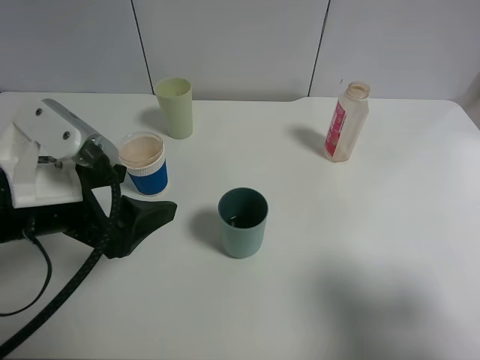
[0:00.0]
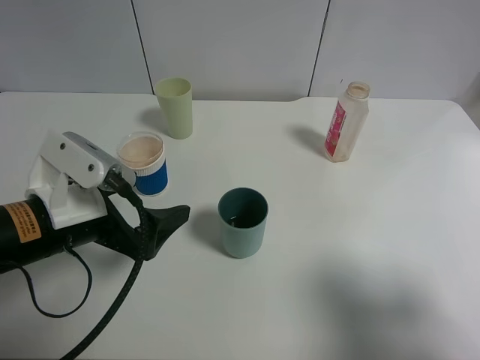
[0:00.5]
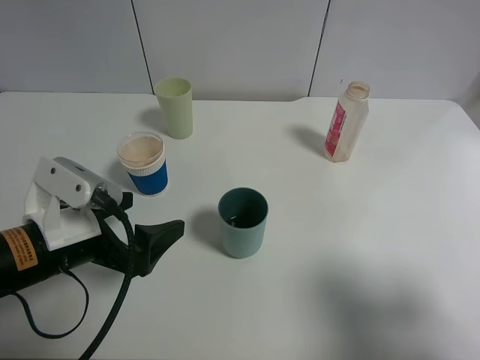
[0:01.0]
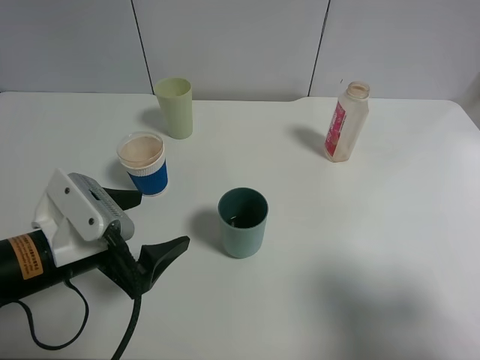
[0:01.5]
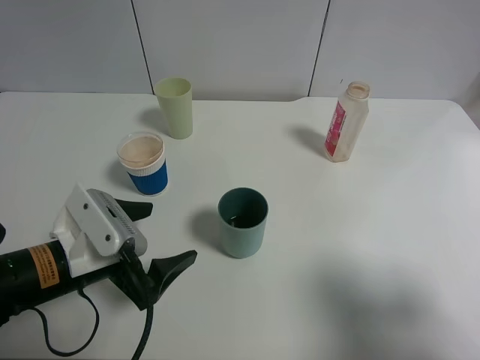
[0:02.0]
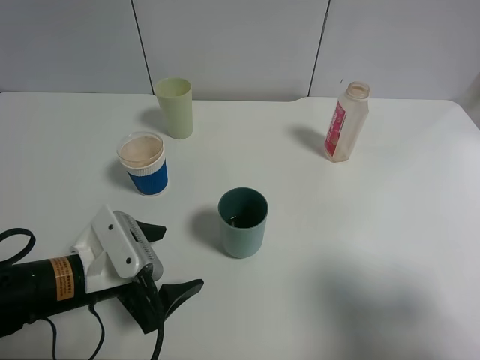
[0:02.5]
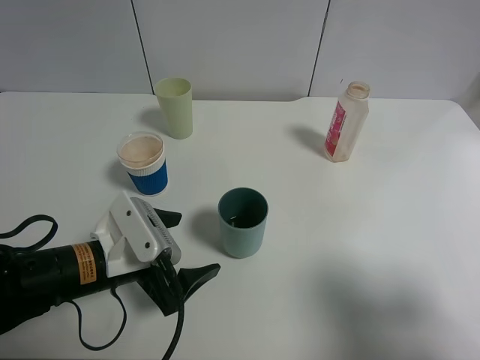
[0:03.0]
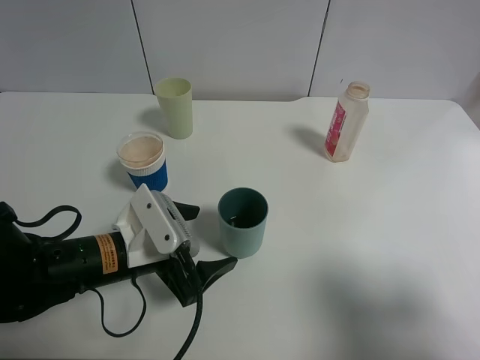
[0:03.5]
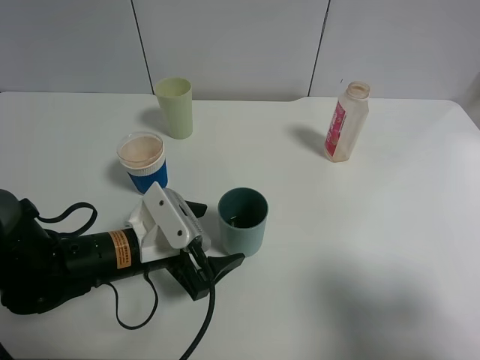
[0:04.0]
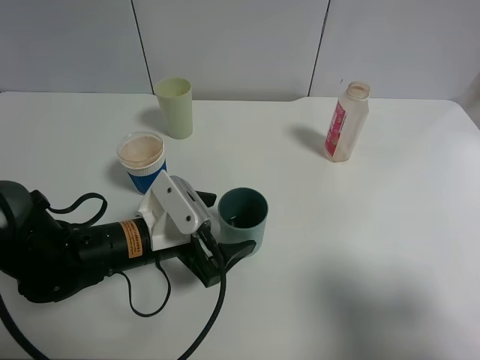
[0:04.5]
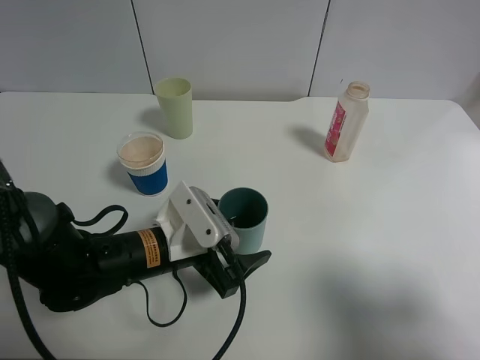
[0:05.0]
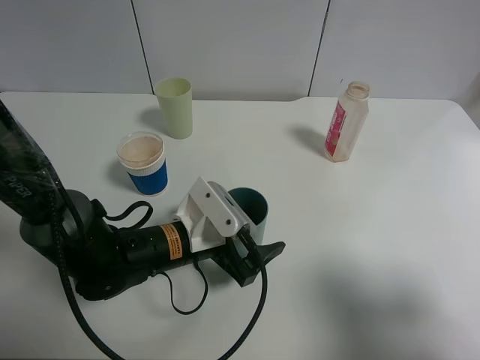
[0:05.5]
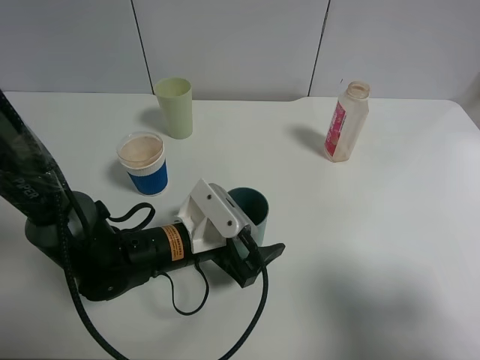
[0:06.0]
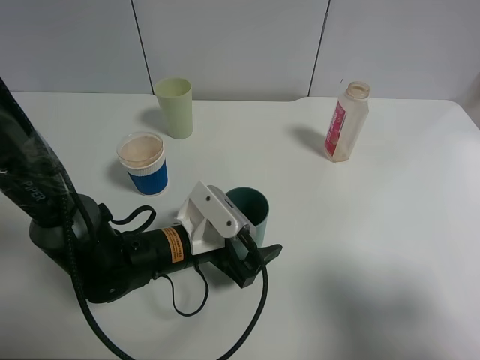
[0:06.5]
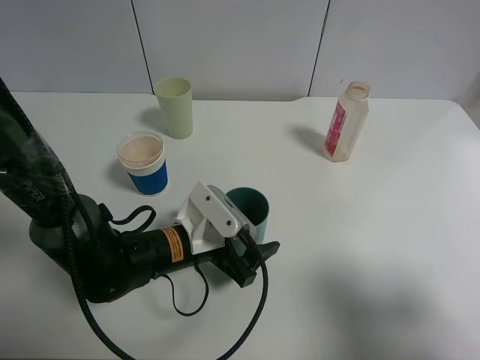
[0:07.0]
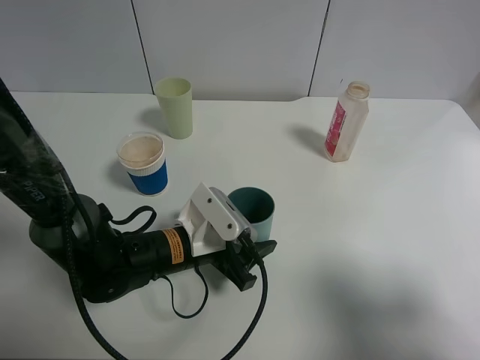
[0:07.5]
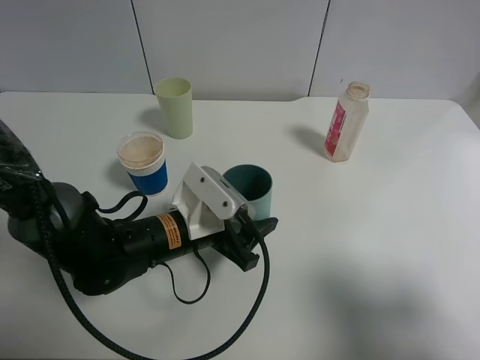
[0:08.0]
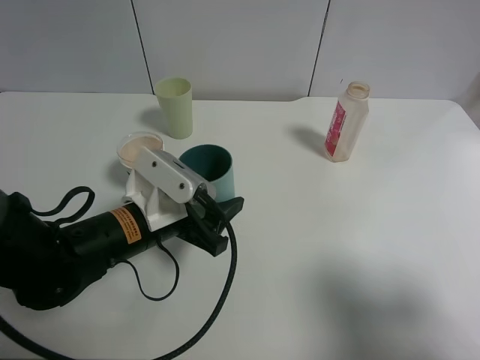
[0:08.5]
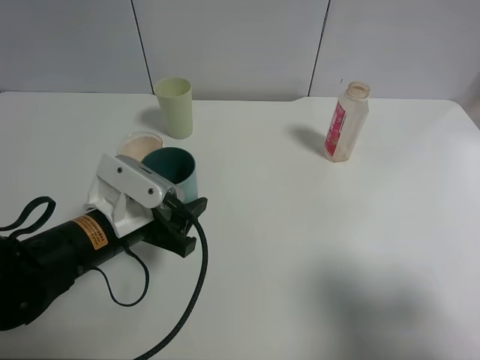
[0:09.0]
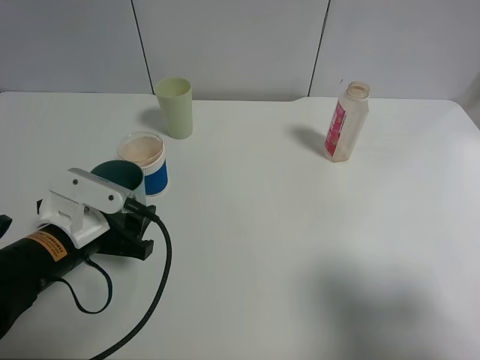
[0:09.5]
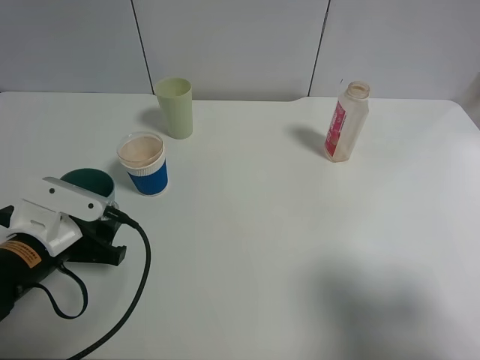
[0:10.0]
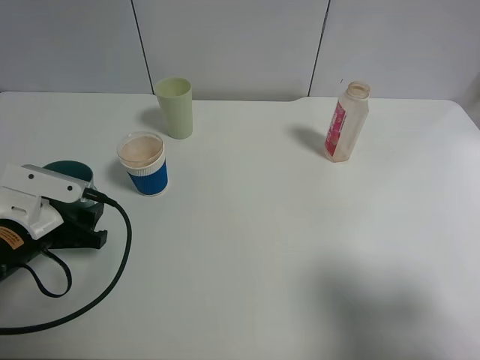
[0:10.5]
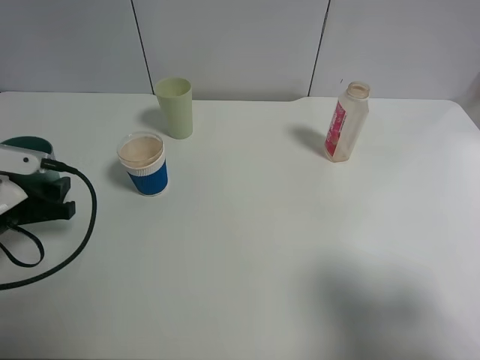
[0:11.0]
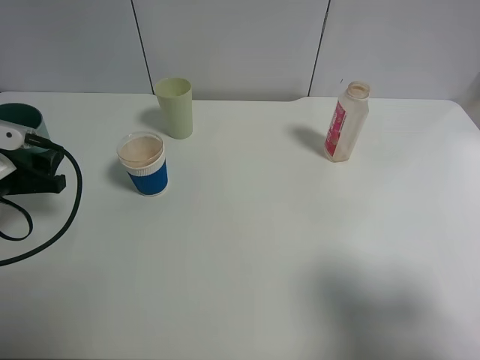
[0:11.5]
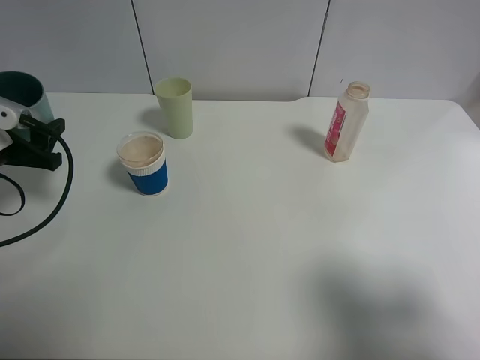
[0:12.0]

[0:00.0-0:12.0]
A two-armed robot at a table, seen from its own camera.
Task of the whole recording: use a clamp to hold the bottle of the drink, pour the beverage into a random cup, then clamp the cup containing the drink and pour the drink into another random cup.
Step, 0:00.0 to 0:08.5: Pick up the blue plastic cup bottle with left gripper.
0:00.0 to 0:02.0: The left gripper shifts about 10 cm downward.
0:02.0 to 0:04.0: The left gripper shifts approximately 5 cm to the right.
0:04.0 to 0:06.0: The left gripper goes roughly 5 cm to the right.
0:06.0 to 0:08.0: The left gripper closes up.
0:08.0 to 0:10.0: The left gripper moves to the left, approximately 15 cm.
0:10.0 to 0:12.0: The left gripper travels to the left, forward and upward by approximately 15 cm.

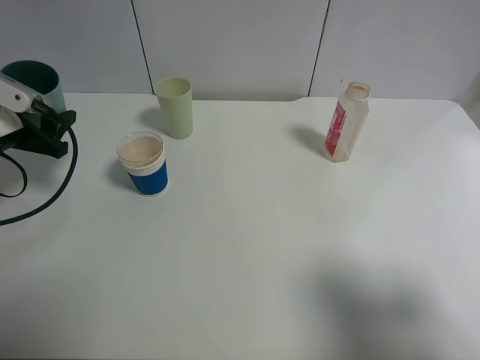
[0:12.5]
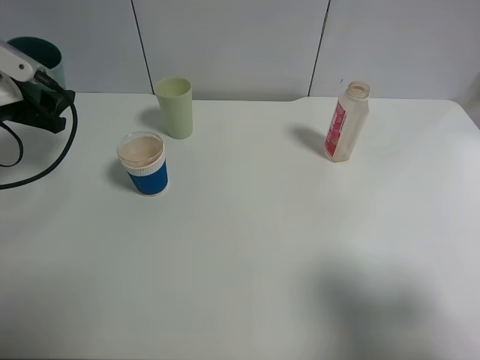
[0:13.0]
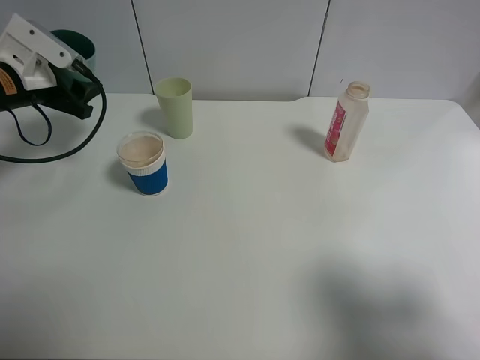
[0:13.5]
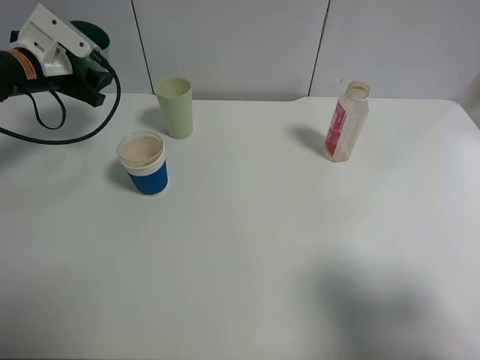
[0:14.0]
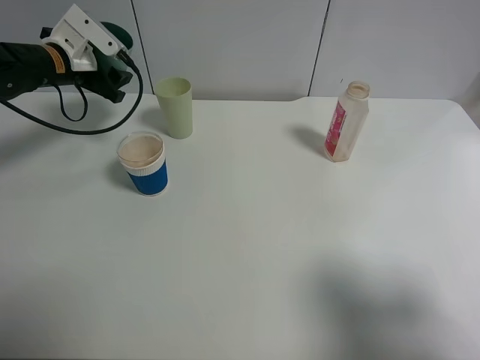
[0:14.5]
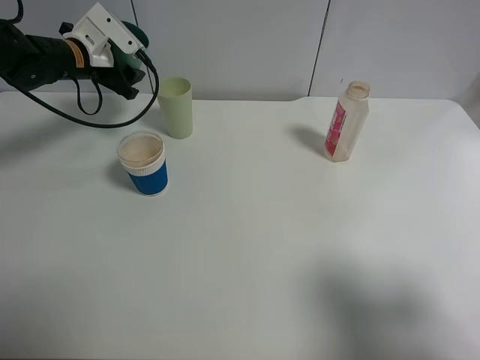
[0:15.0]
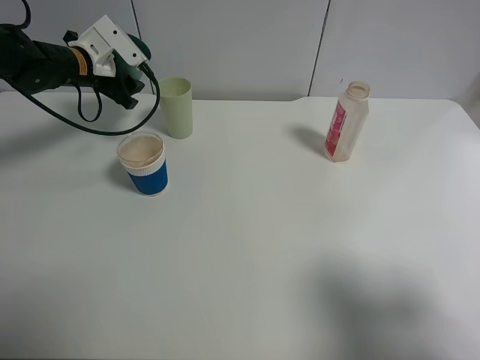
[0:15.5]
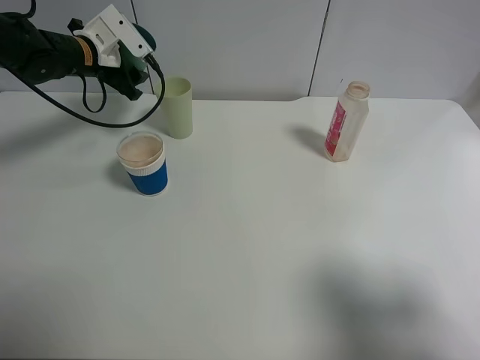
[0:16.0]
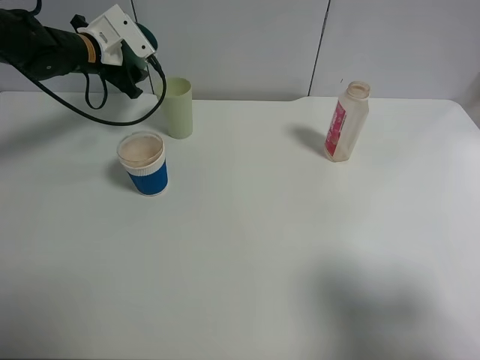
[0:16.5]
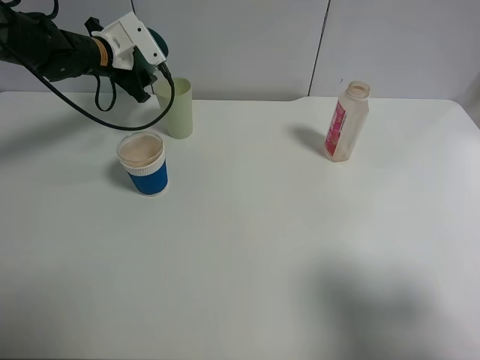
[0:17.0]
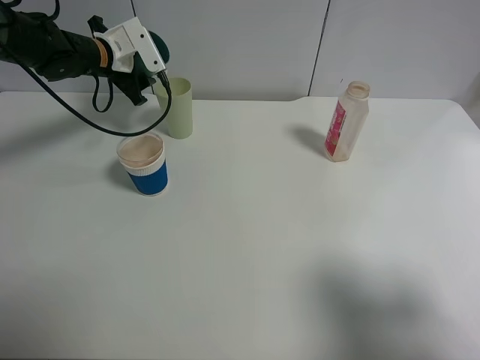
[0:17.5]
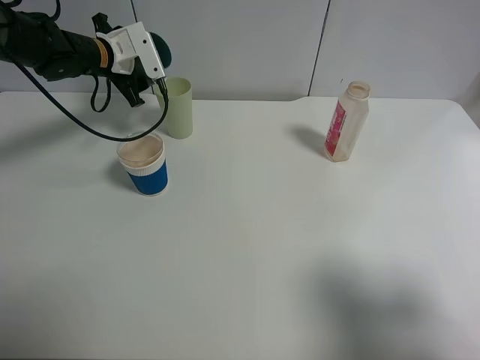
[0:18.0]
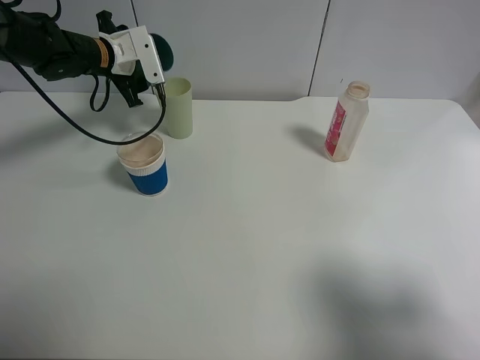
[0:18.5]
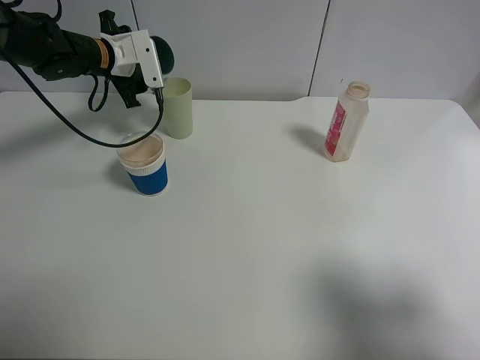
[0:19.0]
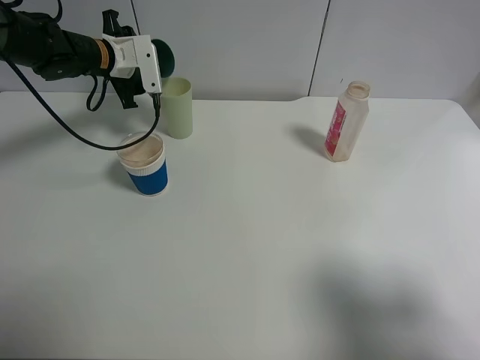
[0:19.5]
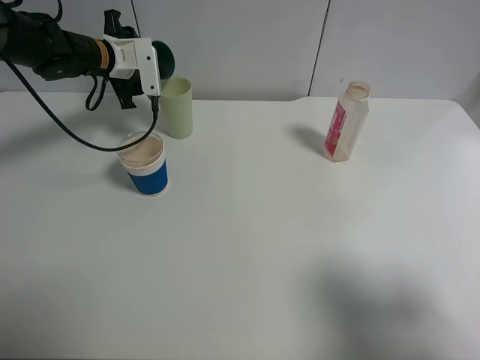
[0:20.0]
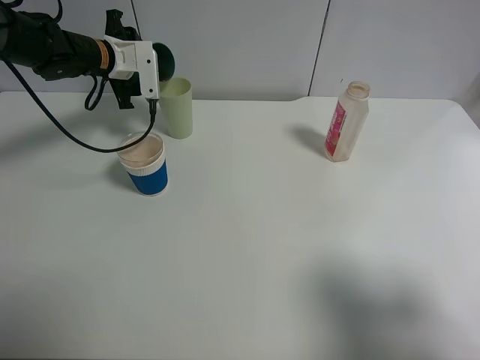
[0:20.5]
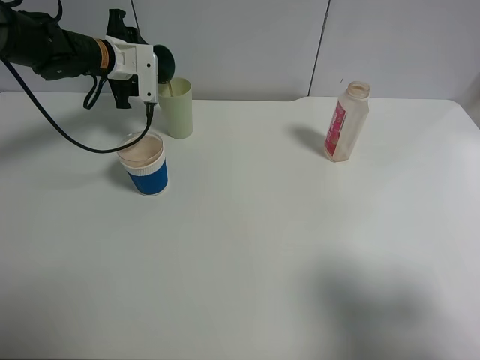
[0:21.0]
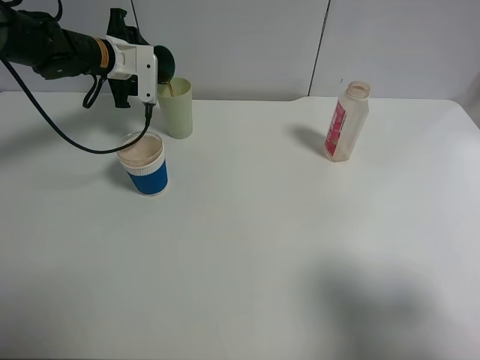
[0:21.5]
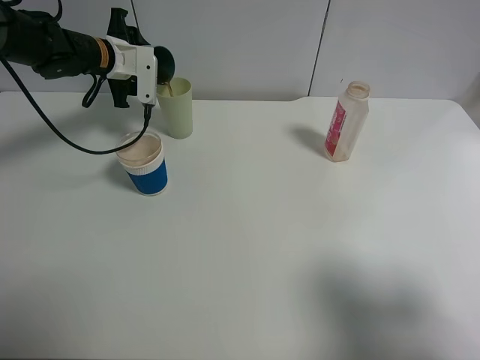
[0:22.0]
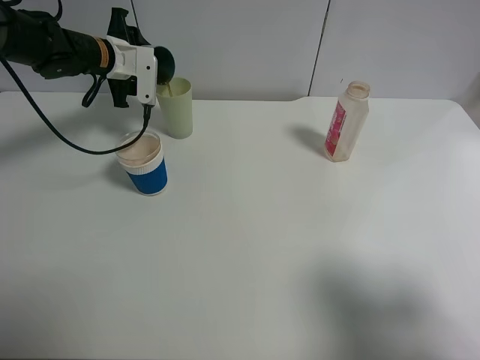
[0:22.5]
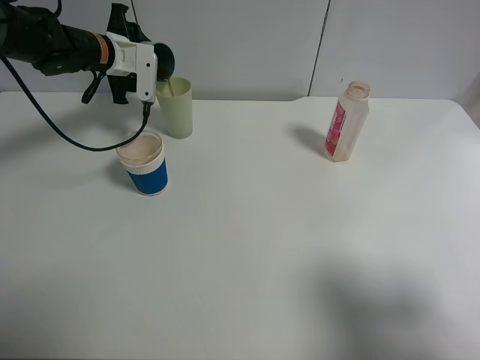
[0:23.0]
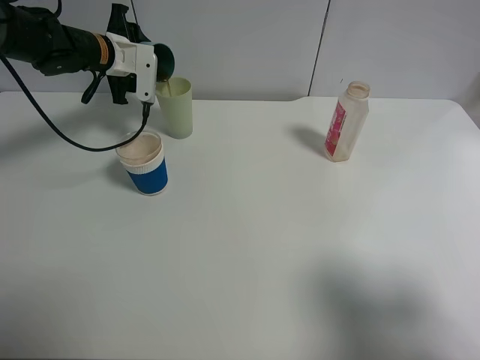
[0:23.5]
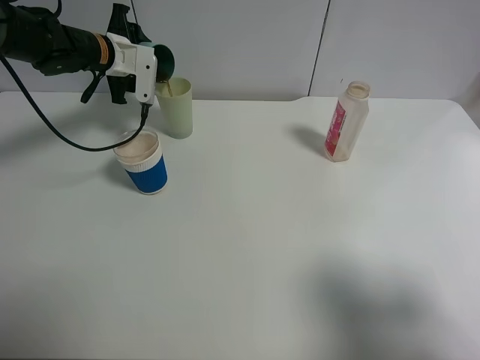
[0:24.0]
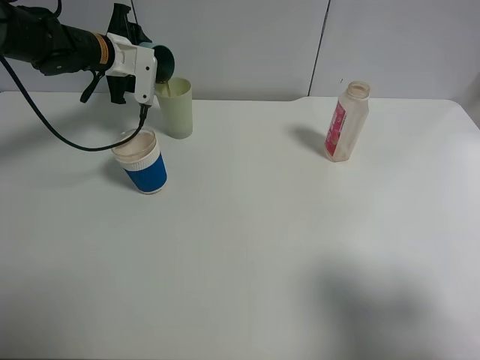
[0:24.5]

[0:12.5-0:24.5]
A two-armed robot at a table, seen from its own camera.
Task of the whole recording: use a clamp to hold the bottle of the drink, pour the beverage into a random cup, then clamp the cup containing the drink and pour the drink into another random cup.
0:12.5 to 0:14.5: The left gripper moves forward, about 15 cm.
0:14.5 to 0:16.5: The grippers move only a little.
0:18.5 to 0:20.5: The grippers move only a little.
0:20.5 to 0:22.5: The grippers move only a little.
0:22.5 to 0:24.5: Neither gripper changes place.

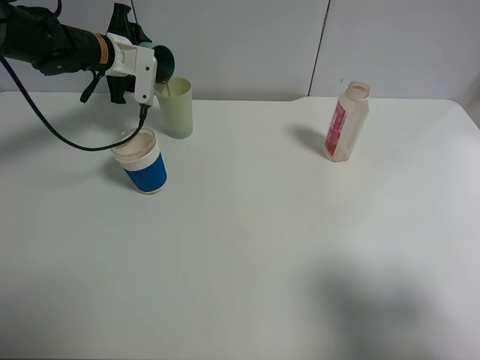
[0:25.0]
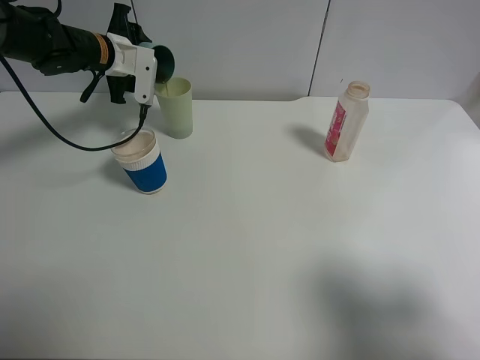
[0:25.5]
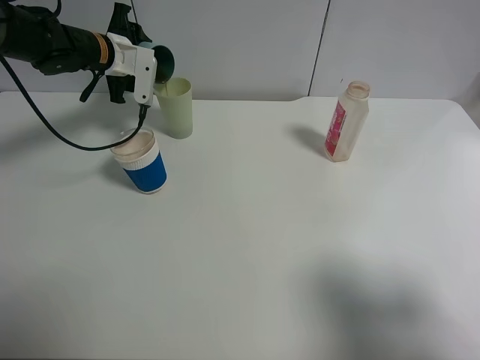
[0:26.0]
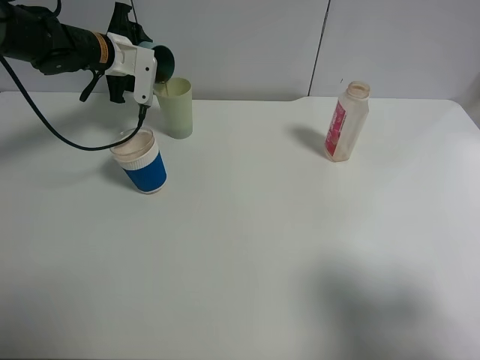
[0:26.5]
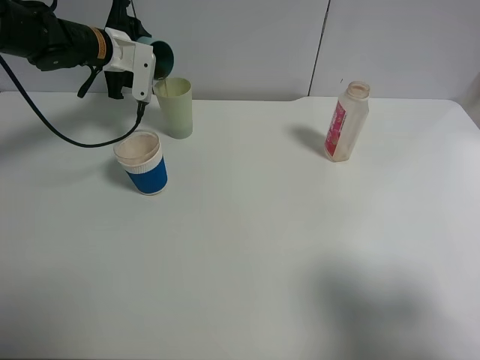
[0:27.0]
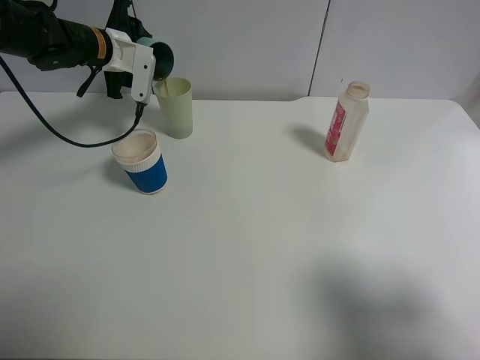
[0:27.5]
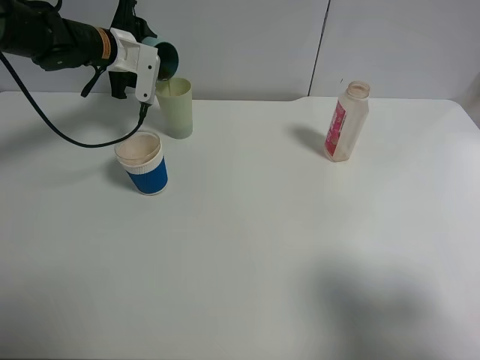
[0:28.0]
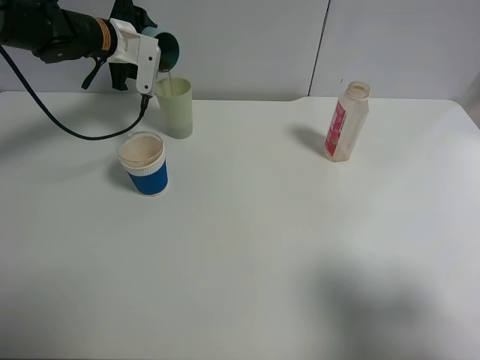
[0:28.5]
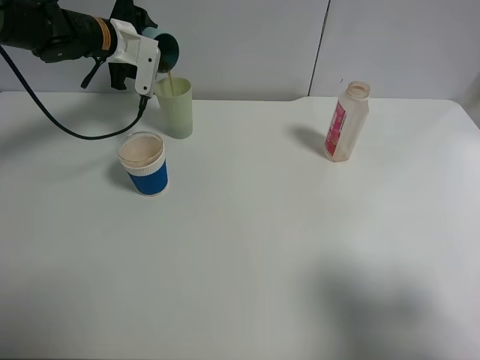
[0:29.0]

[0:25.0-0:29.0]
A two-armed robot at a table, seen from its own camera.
Task of the whole recording: use a clamp to hold the bottle of the drink, pour the beverage into a random cup, then clamp the cup containing the drink and pour the drink into another random cup.
0:25.0 to 0:27.0: The two grippers keep their place.
0:27.0 to 0:29.0: The grippers stay close to where they were, moving slightly.
